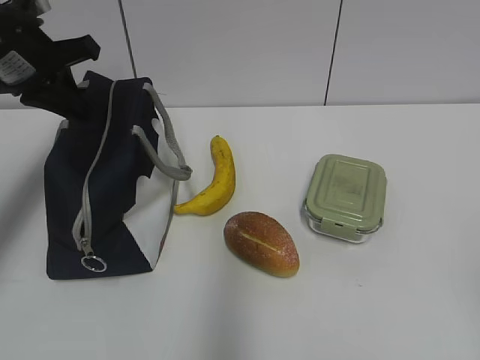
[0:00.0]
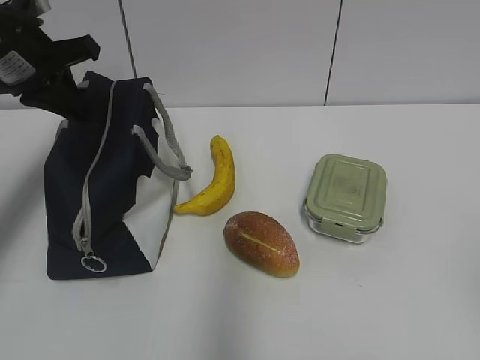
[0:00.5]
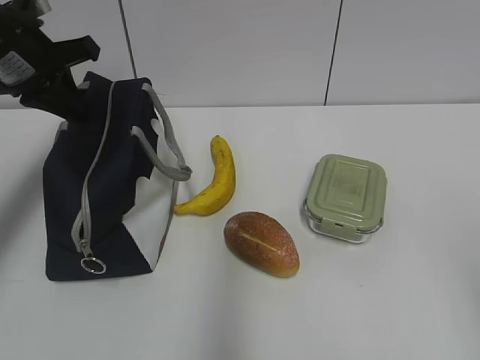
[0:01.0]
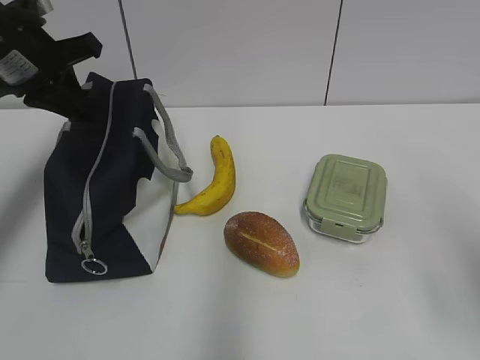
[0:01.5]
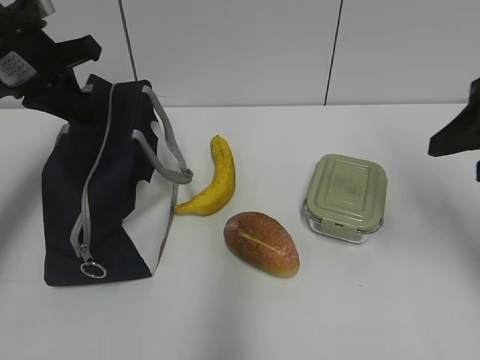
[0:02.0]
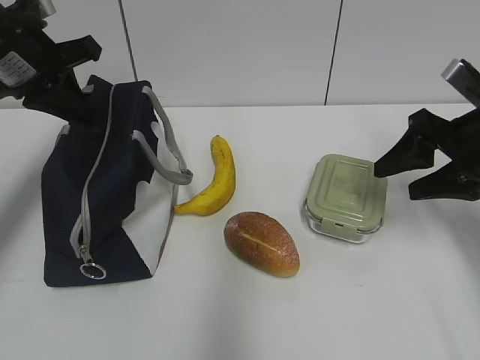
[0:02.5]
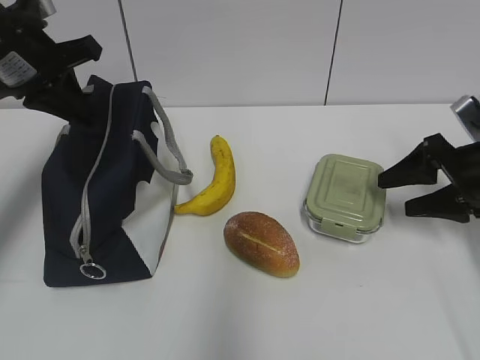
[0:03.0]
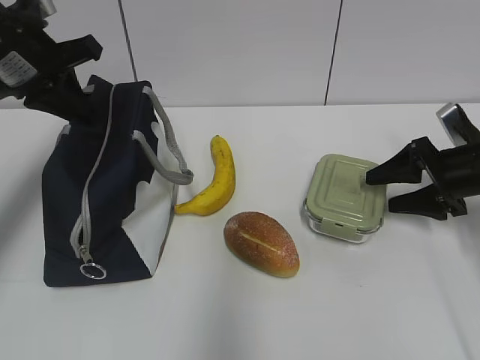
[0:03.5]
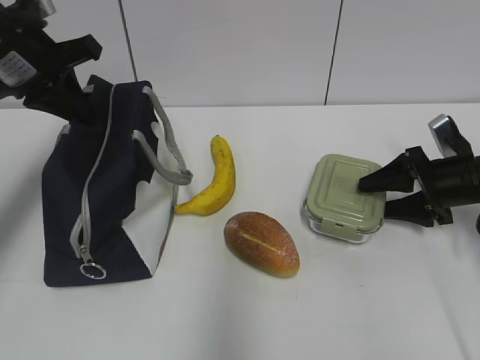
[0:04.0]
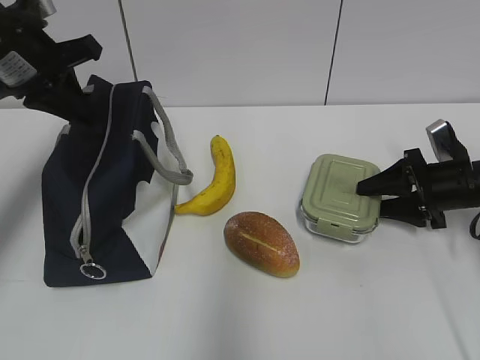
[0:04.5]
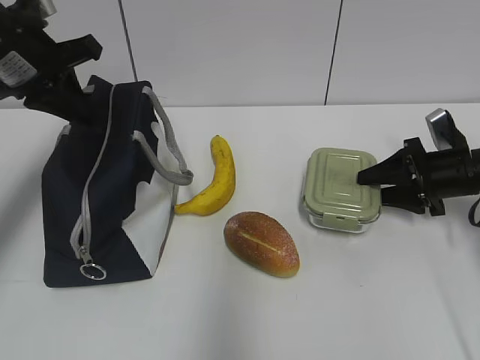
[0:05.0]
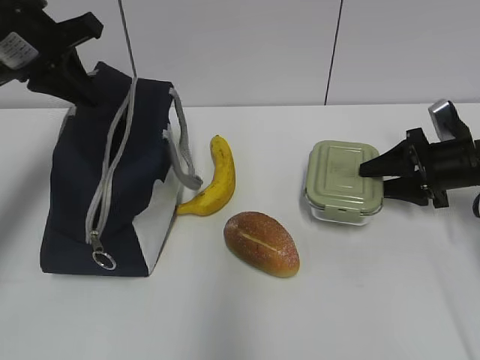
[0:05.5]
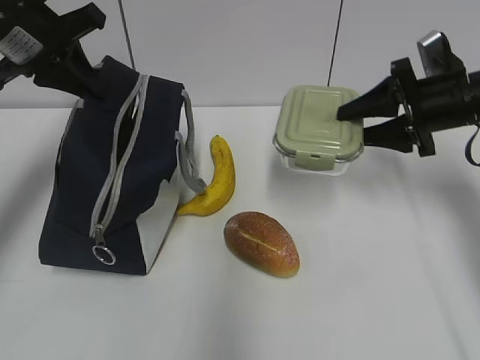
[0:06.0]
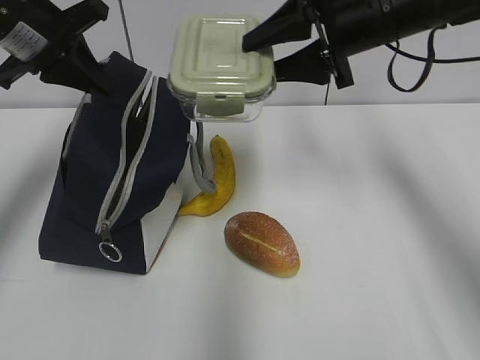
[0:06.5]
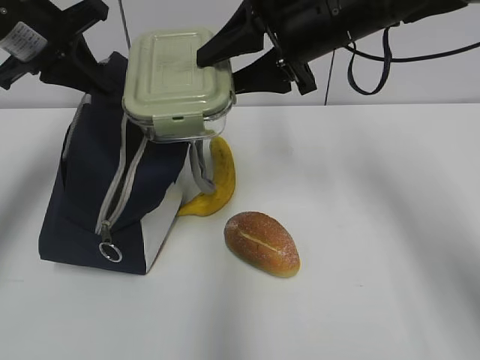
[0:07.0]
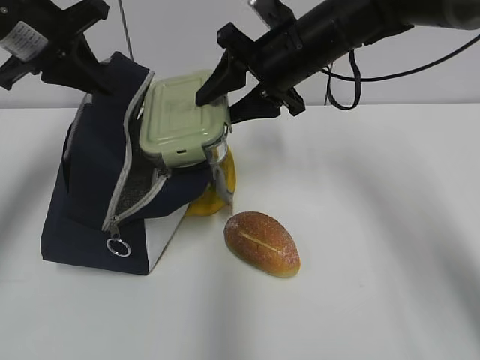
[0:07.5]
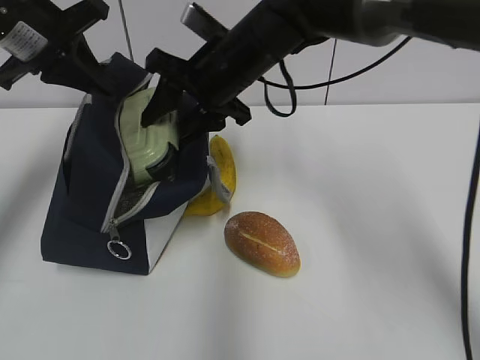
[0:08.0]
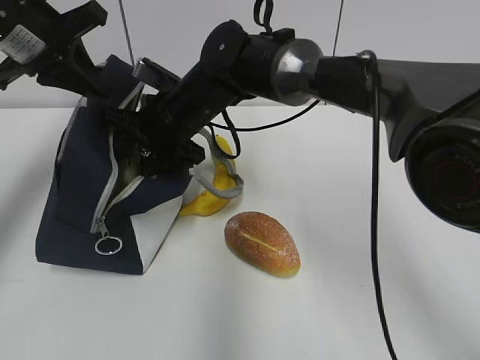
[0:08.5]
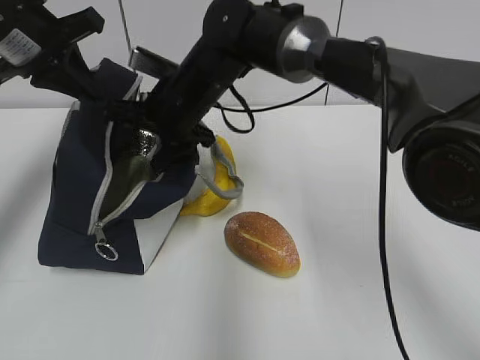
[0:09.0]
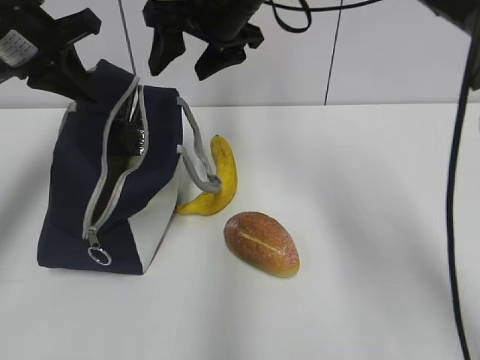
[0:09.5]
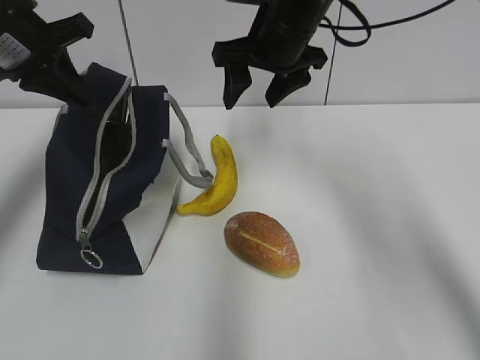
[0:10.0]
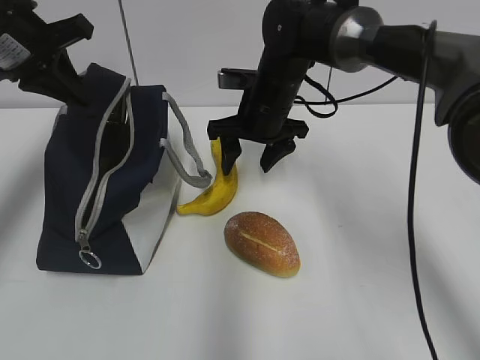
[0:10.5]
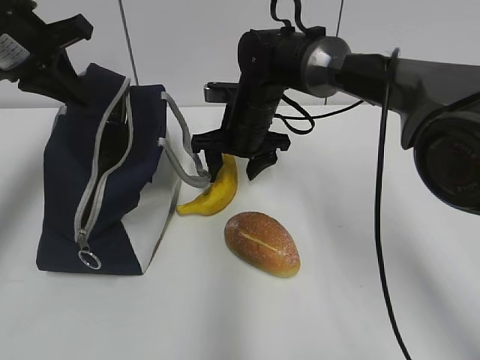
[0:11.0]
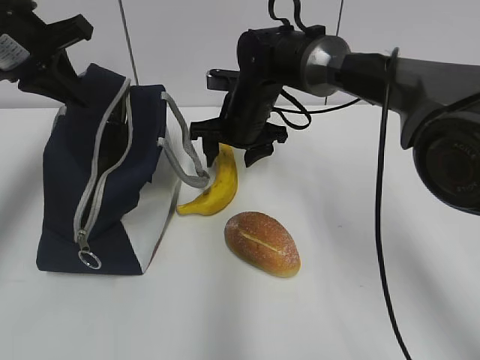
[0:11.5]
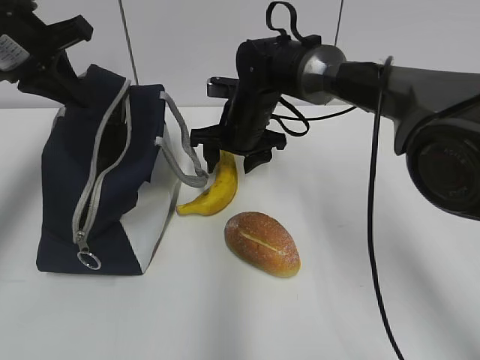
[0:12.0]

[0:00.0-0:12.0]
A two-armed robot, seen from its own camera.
0.0 to 2.0 s: The right gripper shifts roughly 25 cm forward.
2.0 to 4.0 s: The right gripper goes approximately 25 cm downward and forward.
4.0 to 6.0 s: The right gripper heads upward, covering about 10 cm.
6.0 to 8.0 s: The right gripper heads to the left, covering about 25 cm.
8.0 to 10.0 s: The right gripper shifts some 5 cm to the right.
10.0 to 12.0 s: The right gripper moves downward, some 15 cm.

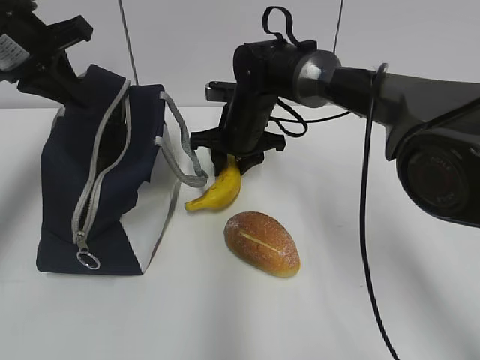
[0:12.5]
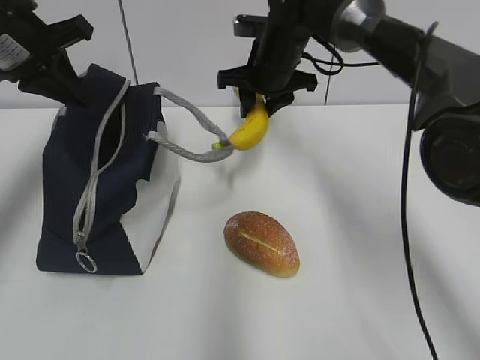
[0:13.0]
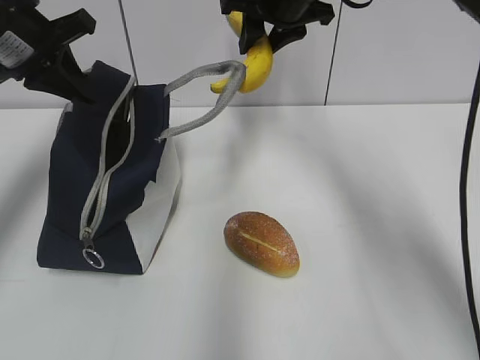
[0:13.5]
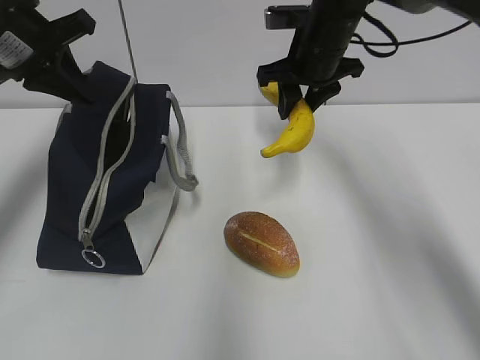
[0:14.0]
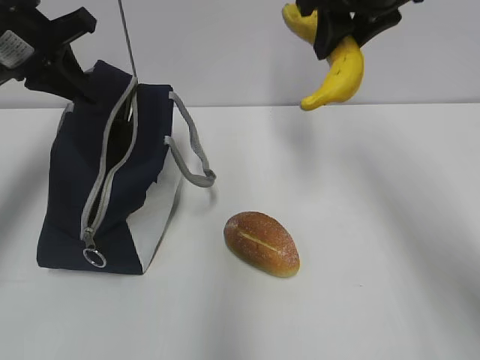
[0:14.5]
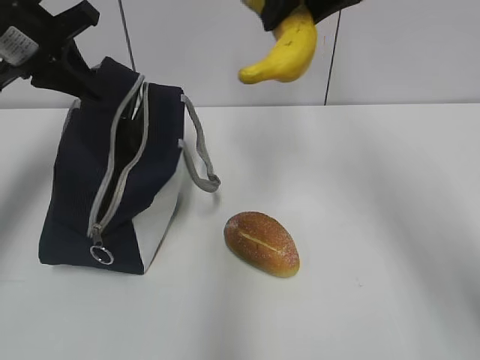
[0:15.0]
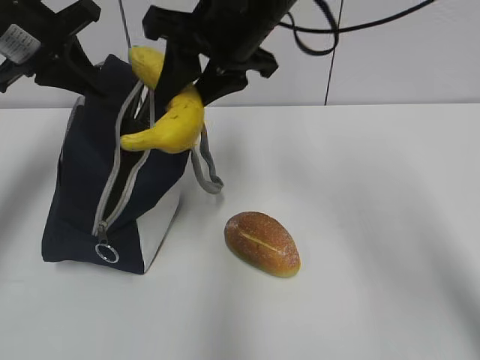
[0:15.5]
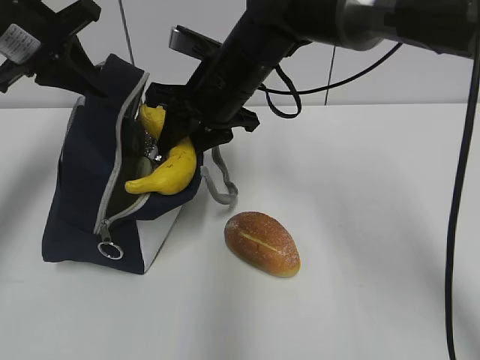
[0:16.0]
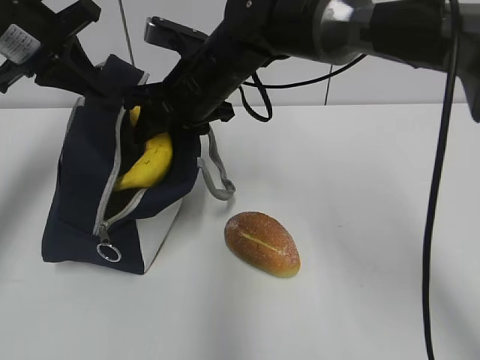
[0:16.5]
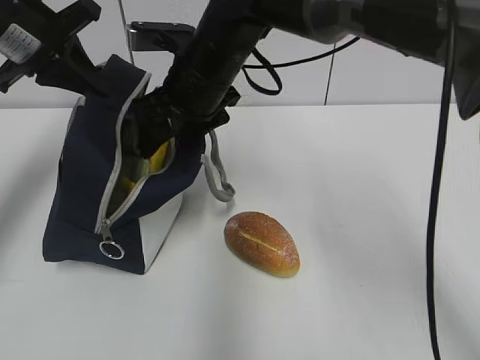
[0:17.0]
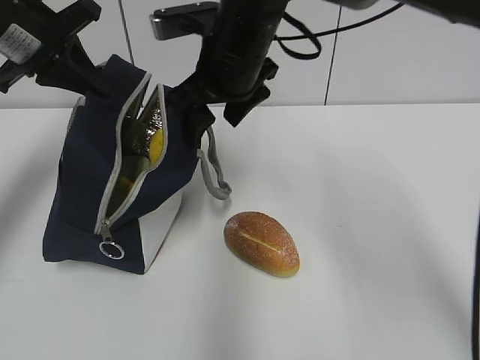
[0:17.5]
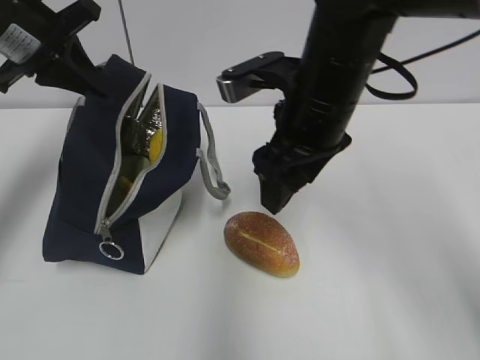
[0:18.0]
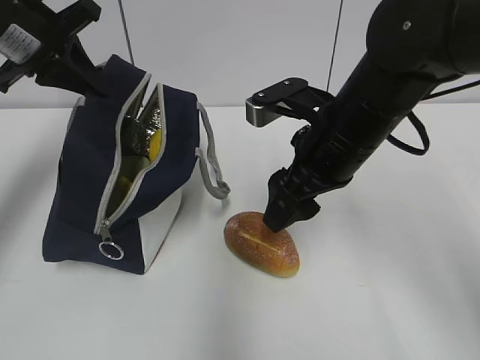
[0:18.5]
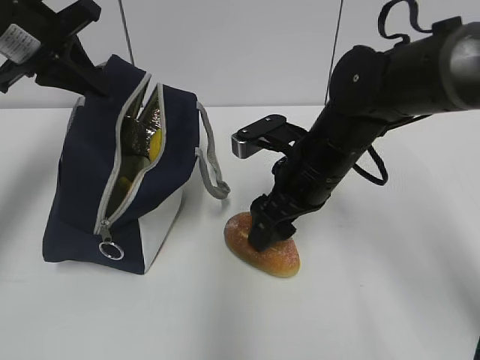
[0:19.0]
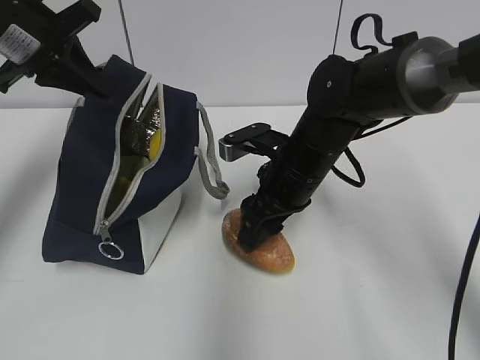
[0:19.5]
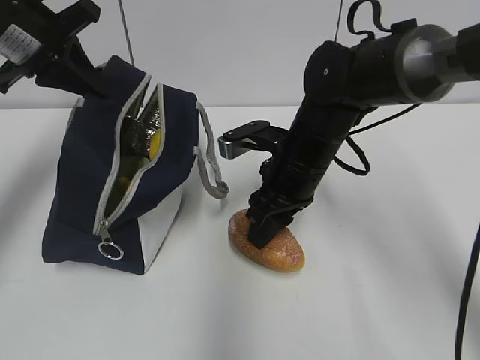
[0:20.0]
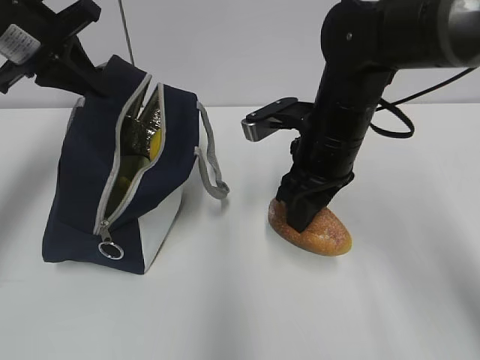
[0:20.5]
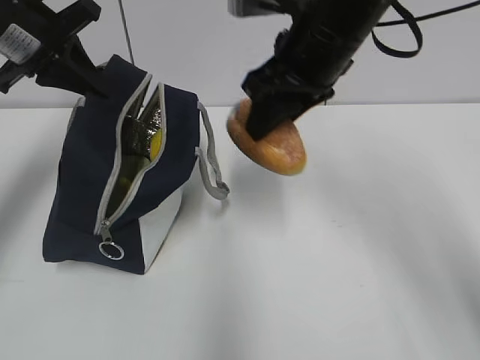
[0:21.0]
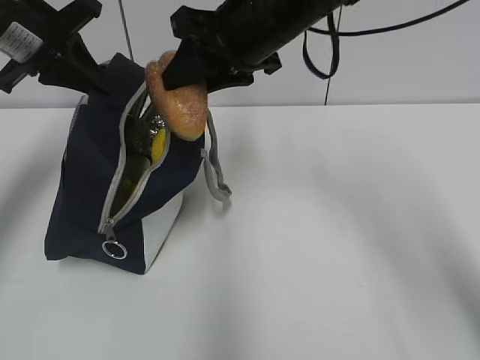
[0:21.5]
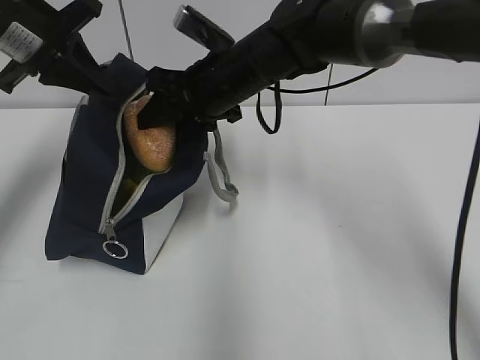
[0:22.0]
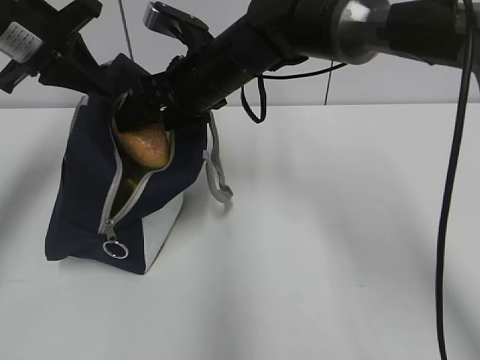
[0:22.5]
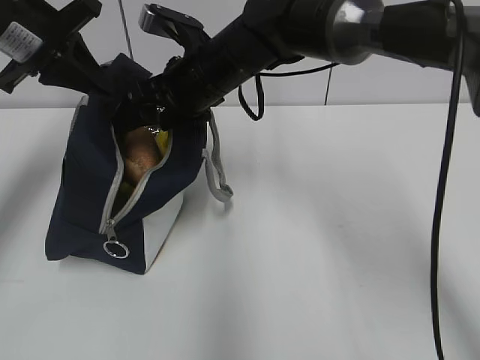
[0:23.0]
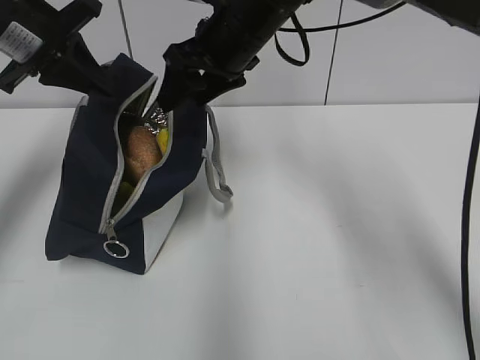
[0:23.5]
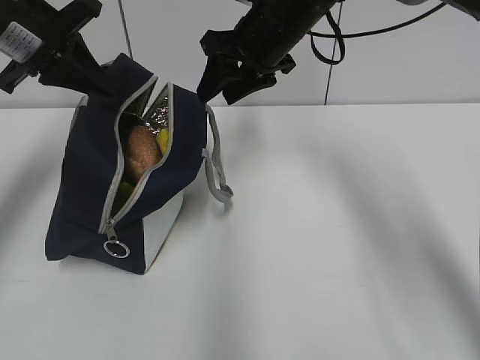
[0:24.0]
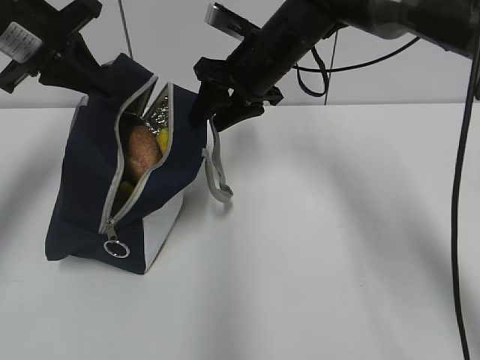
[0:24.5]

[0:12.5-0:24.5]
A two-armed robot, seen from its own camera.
12.5 to 14.5 s: The right gripper moves up and down over some 20 cm, changing direction 2 times.
14.5 to 16.5 s: The right gripper shifts some 20 cm to the left and downward.
16.5 to 18.5 s: The right gripper moves to the right and backward, approximately 15 cm, and opens its fingers.
18.5 to 20.5 s: The right gripper travels downward and back again, some 10 cm each way, and closes up.
20.5 to 22.5 s: The right gripper travels to the left and forward by some 15 cm, and opens.
22.5 to 24.5 s: The right gripper shifts about 5 cm to the right.

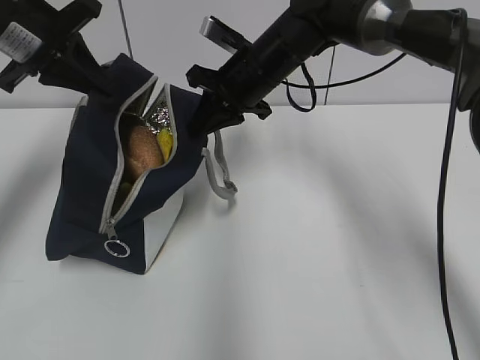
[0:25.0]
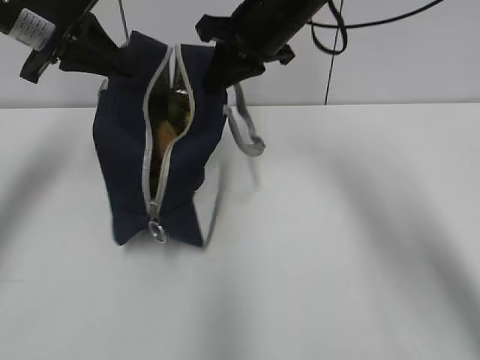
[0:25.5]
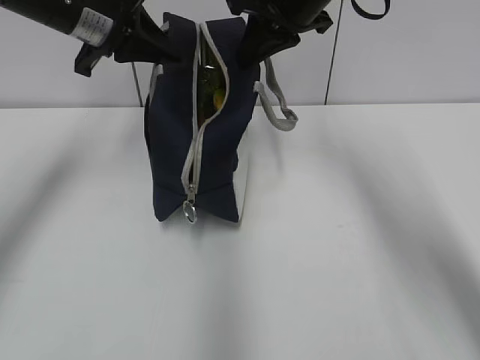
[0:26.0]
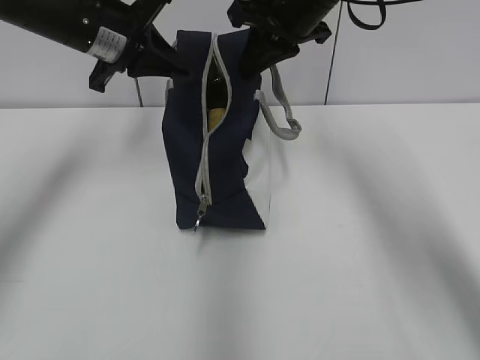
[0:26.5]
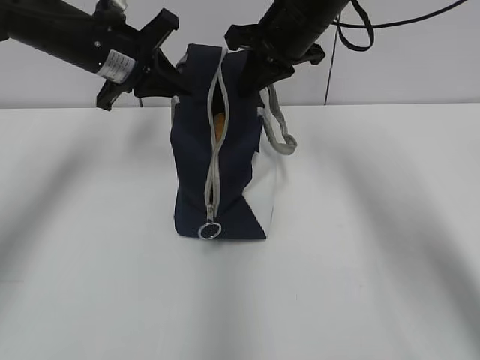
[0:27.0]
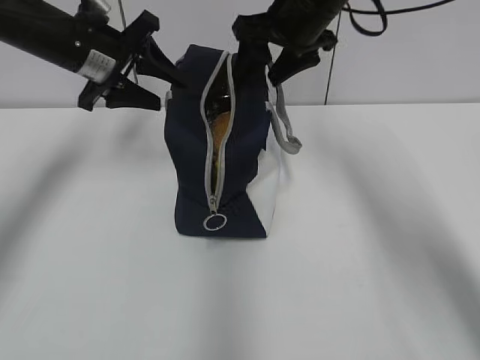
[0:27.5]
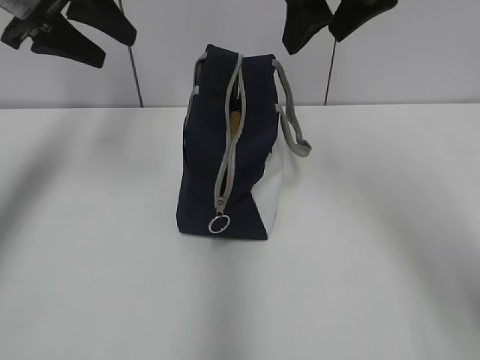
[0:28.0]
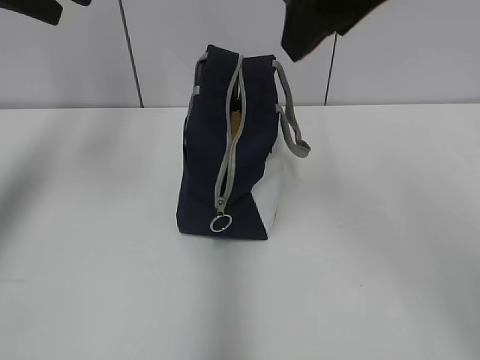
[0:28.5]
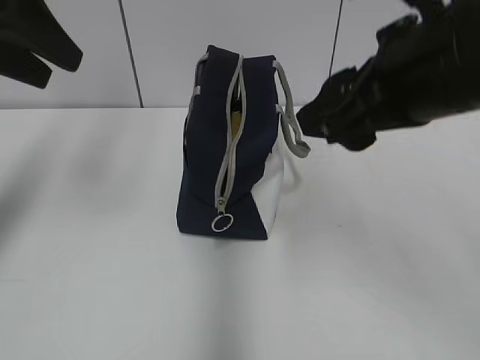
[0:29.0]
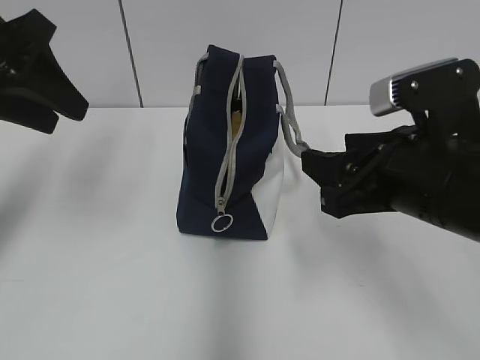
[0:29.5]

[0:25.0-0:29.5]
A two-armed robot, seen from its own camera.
25.0 to 27.0 s: The left gripper heads to the right, covering roughly 5 cm. Meanwhile the right gripper heads upward, covering about 5 cm.
27.0 to 29.5 s: The left gripper is displaced backward, to the left and upward by approximately 15 cm, and opens up, while the right gripper travels backward by some 25 cm, and opens its fingers.
